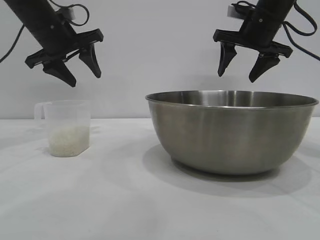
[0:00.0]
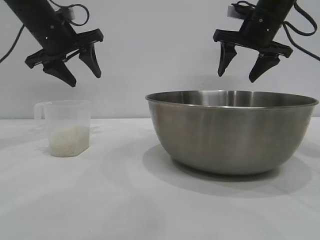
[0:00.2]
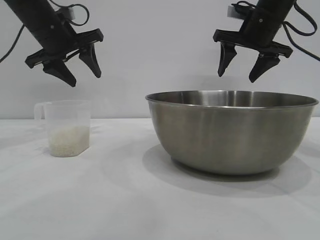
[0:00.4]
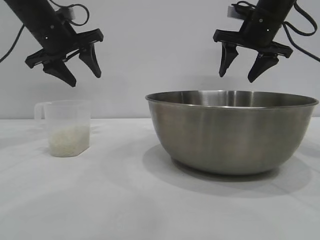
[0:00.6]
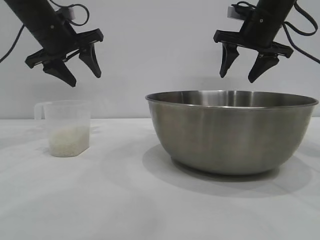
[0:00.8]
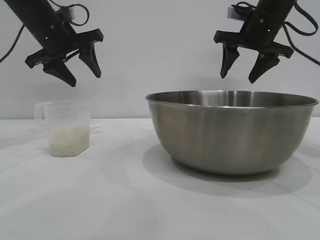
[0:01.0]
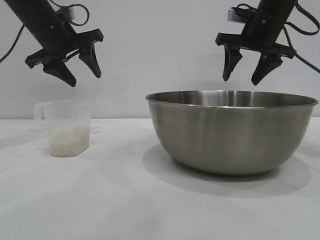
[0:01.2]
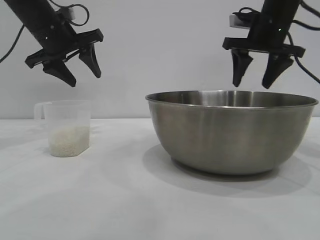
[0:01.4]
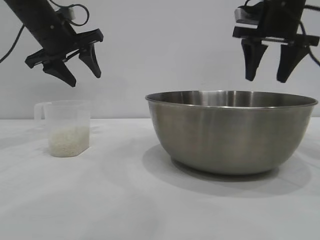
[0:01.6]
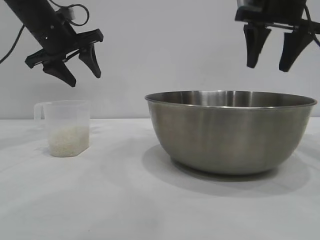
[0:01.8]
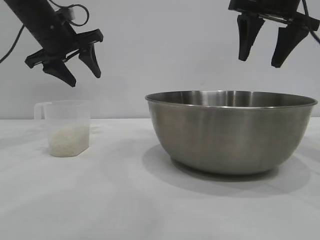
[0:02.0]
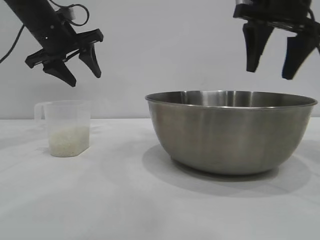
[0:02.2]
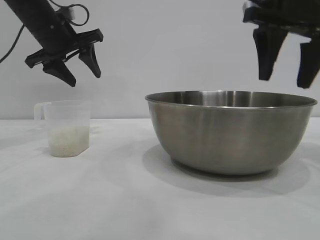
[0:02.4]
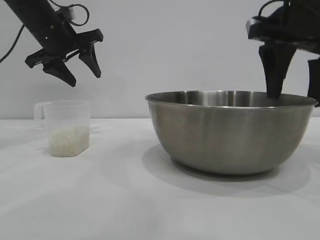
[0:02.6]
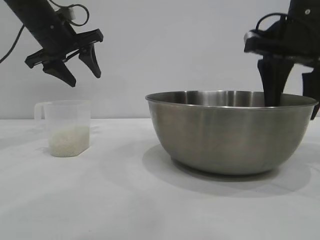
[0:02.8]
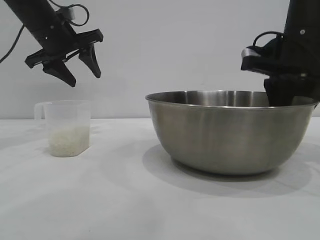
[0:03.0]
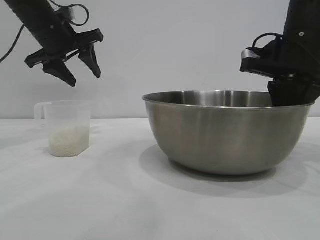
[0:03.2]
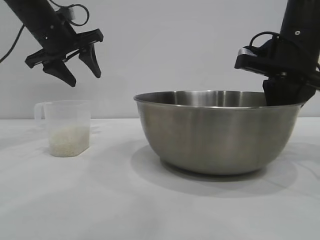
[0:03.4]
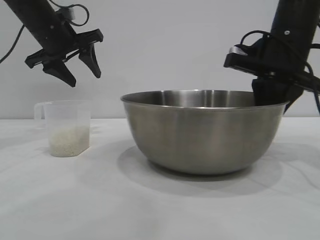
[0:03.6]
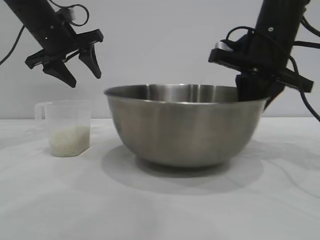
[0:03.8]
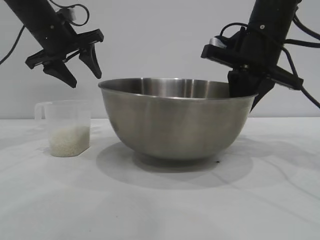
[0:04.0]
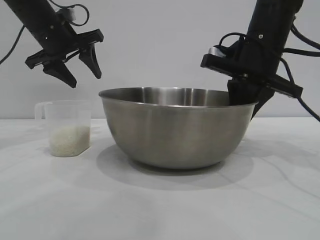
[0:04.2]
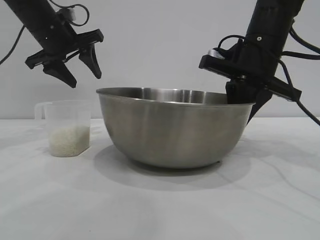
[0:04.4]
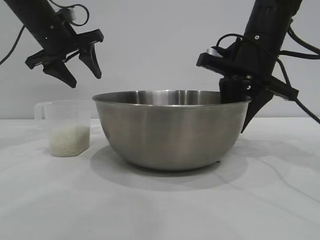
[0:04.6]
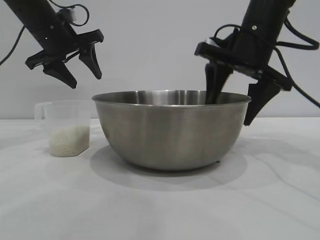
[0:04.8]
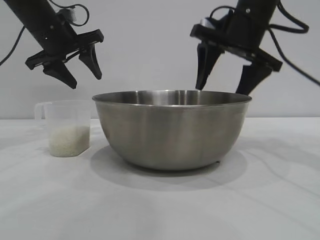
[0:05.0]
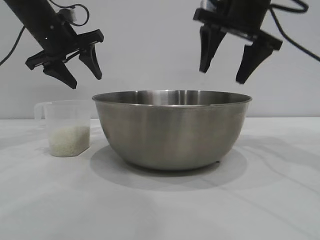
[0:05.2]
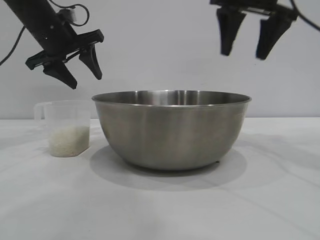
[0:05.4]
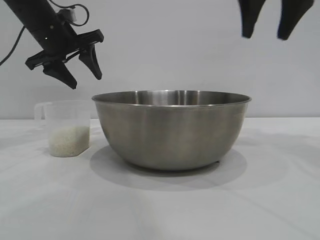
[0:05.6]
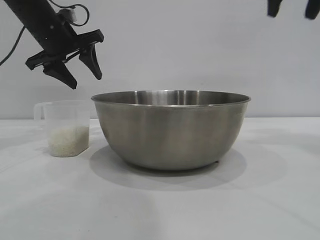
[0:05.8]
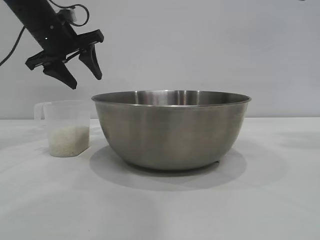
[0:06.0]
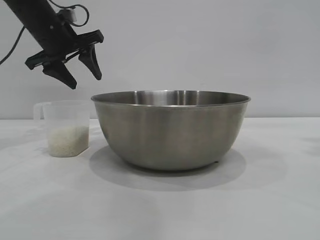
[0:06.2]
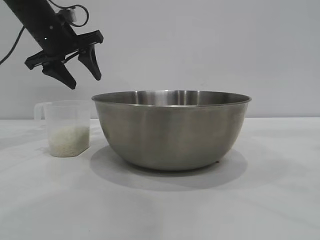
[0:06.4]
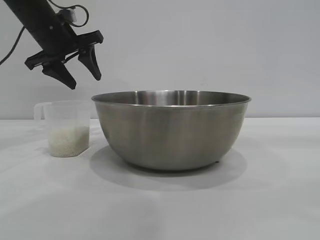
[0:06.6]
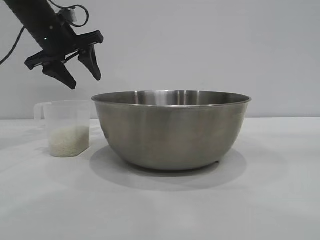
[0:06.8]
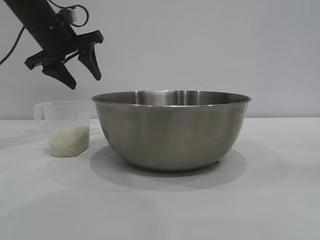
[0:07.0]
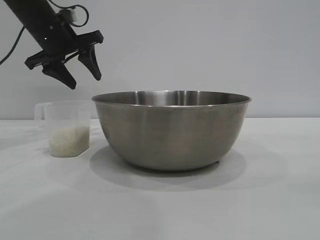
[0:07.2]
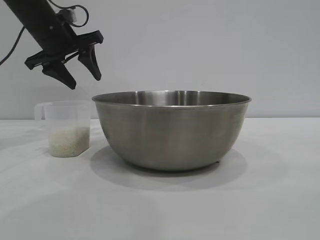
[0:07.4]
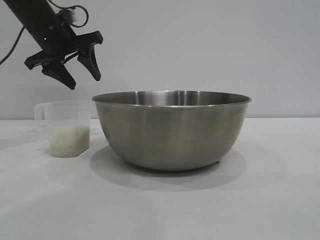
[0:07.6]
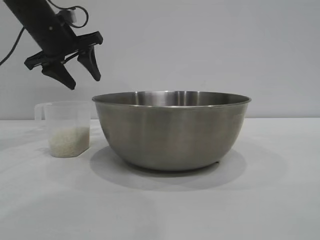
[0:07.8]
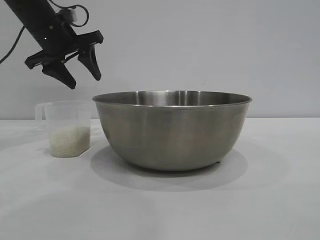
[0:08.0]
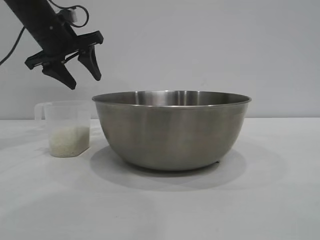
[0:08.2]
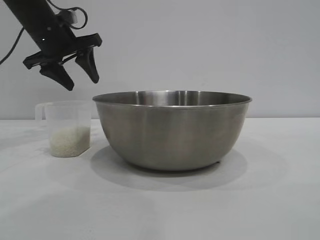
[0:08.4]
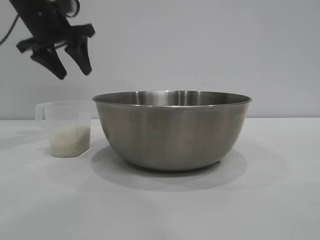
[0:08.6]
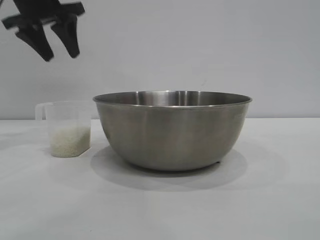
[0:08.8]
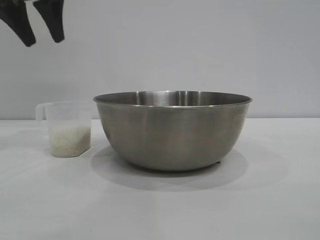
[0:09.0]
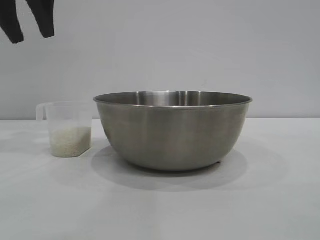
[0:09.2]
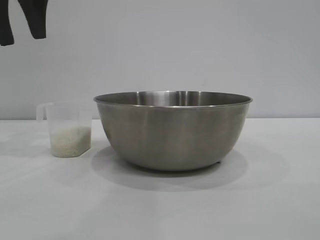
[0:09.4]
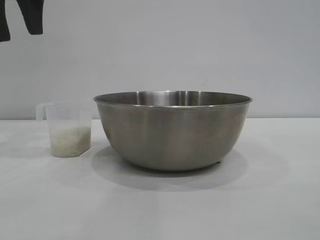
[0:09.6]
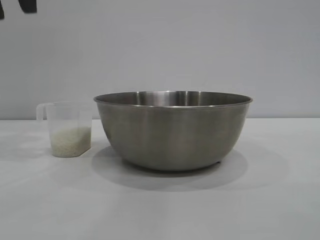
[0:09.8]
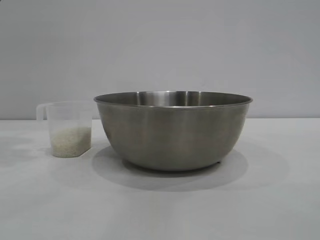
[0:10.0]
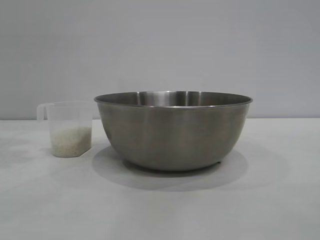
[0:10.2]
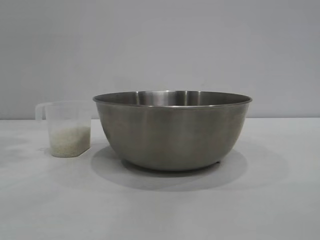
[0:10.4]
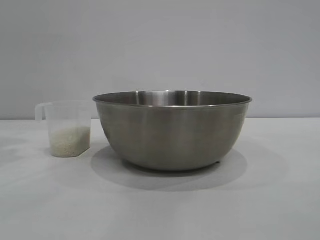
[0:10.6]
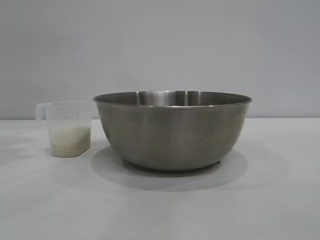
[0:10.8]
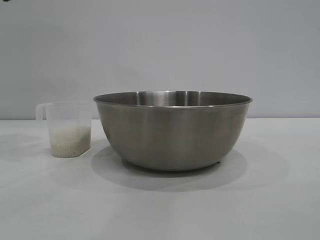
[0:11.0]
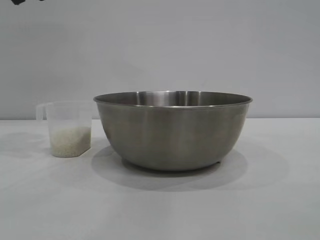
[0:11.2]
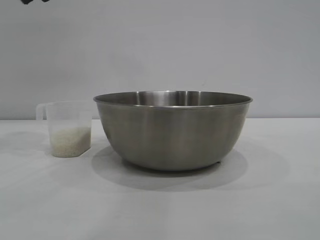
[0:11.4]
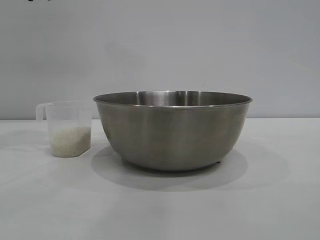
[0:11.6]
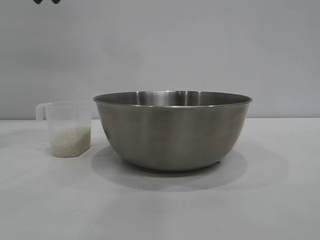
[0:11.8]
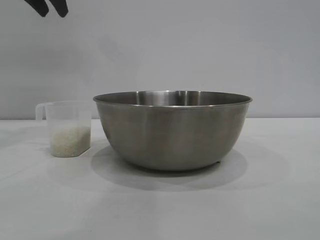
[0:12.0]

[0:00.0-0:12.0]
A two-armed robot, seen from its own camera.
Task of the whole recording: the right gripper grasp the rice container and place it in the center of the table, the left gripper grasp the rice scoop and pour the rice into the rice container.
Step, 0:00.0 to 0:03.8: Pick up the bowl with the right gripper.
Step, 0:04.0 to 0:05.2: Place the bowl in the center of view with the right gripper.

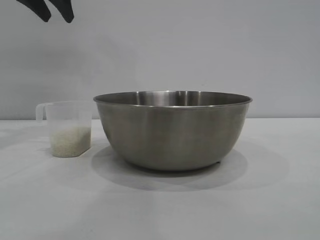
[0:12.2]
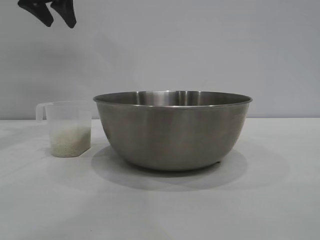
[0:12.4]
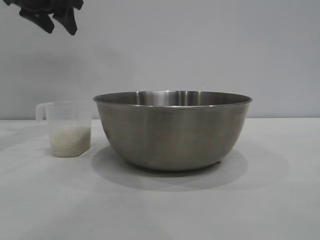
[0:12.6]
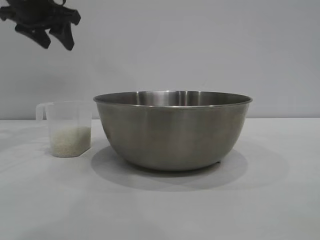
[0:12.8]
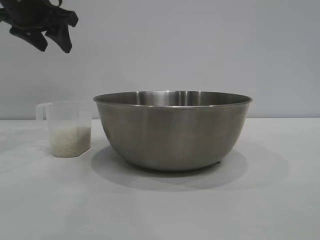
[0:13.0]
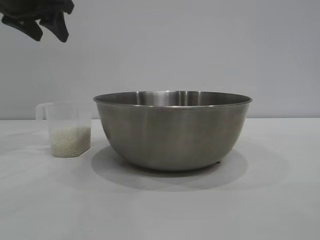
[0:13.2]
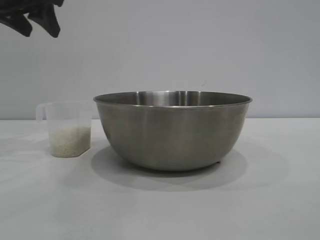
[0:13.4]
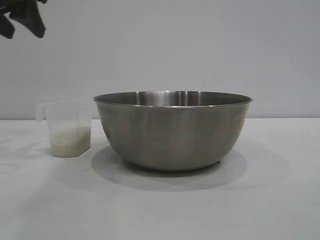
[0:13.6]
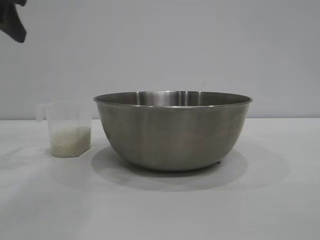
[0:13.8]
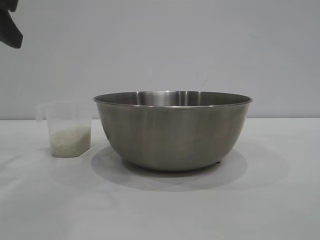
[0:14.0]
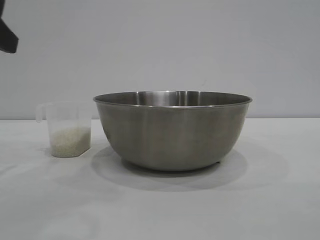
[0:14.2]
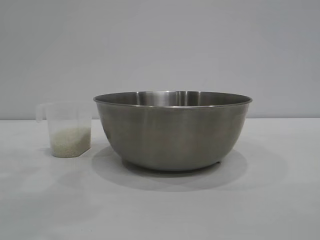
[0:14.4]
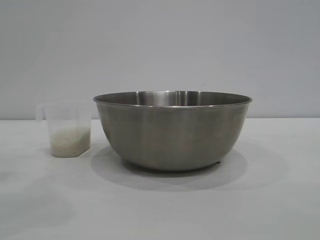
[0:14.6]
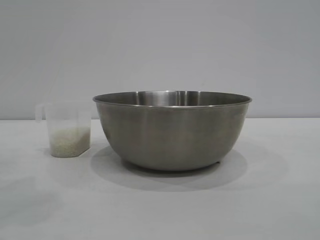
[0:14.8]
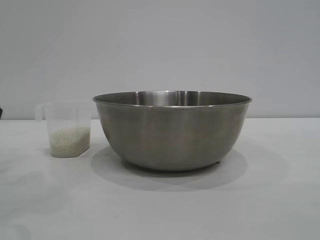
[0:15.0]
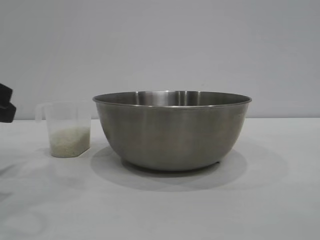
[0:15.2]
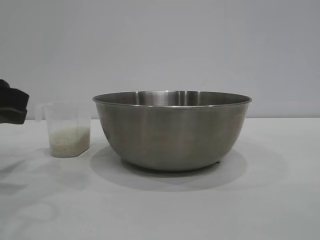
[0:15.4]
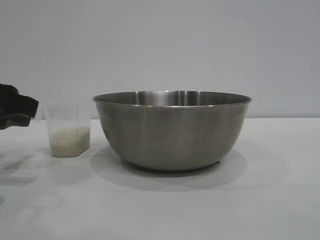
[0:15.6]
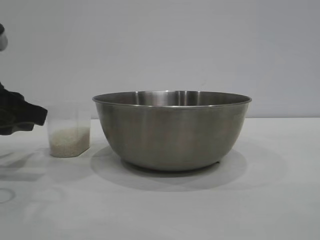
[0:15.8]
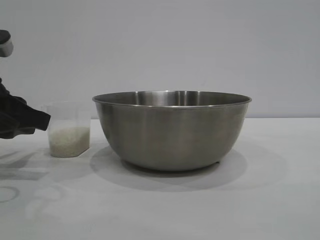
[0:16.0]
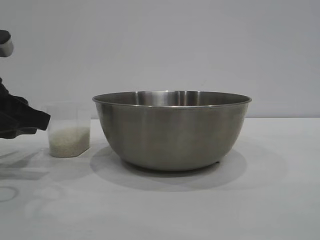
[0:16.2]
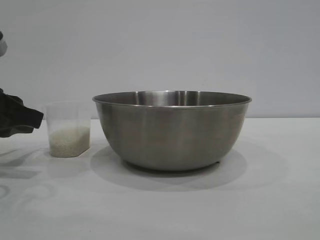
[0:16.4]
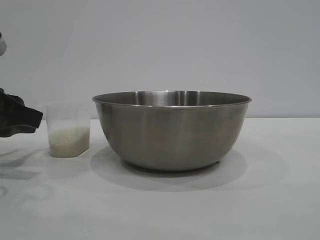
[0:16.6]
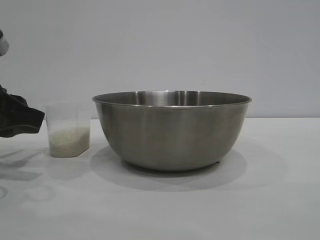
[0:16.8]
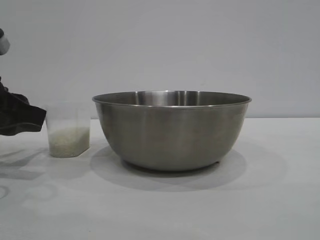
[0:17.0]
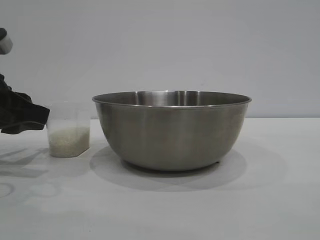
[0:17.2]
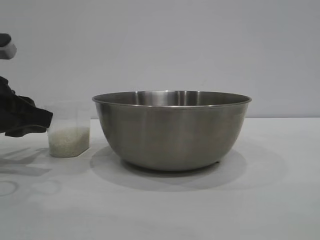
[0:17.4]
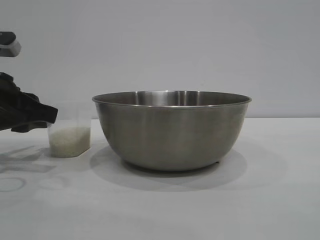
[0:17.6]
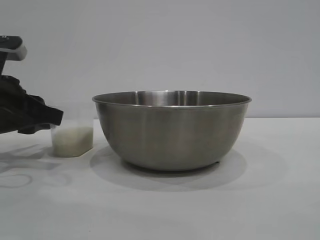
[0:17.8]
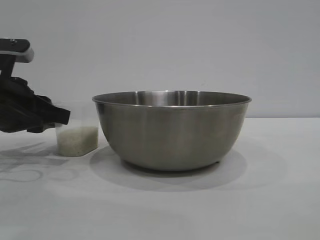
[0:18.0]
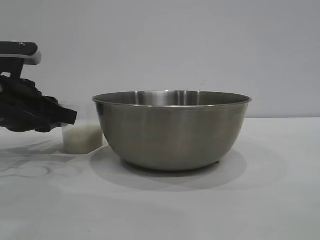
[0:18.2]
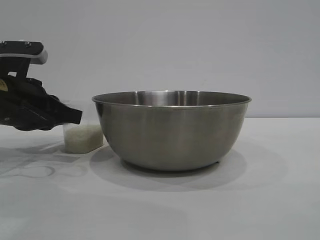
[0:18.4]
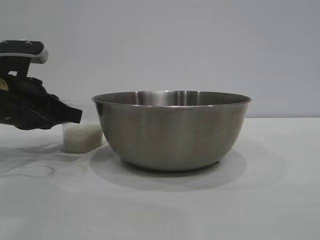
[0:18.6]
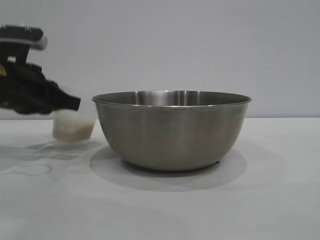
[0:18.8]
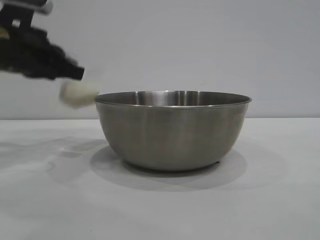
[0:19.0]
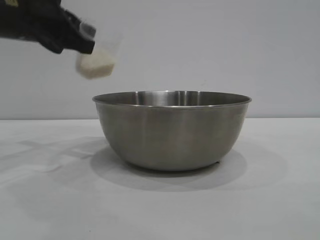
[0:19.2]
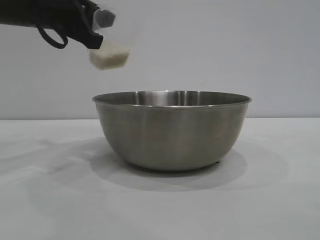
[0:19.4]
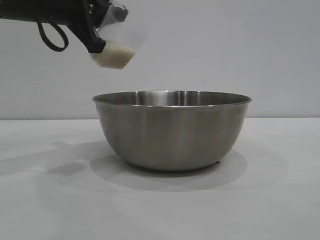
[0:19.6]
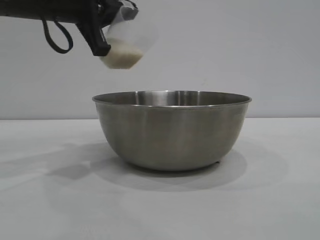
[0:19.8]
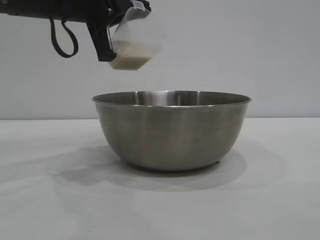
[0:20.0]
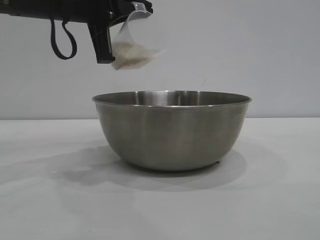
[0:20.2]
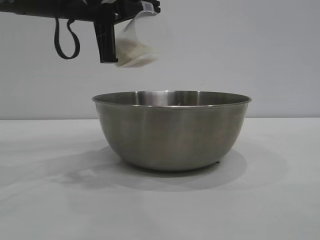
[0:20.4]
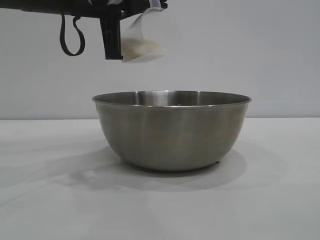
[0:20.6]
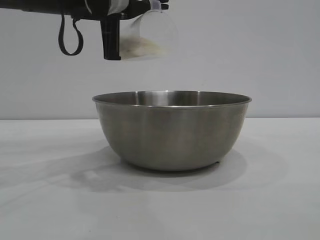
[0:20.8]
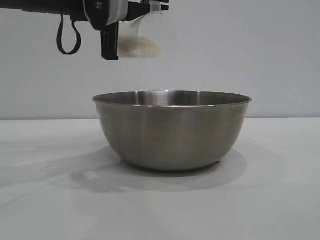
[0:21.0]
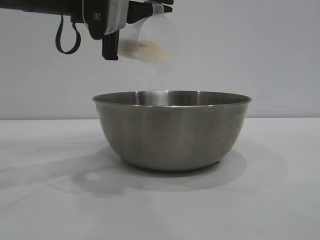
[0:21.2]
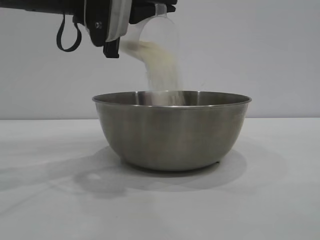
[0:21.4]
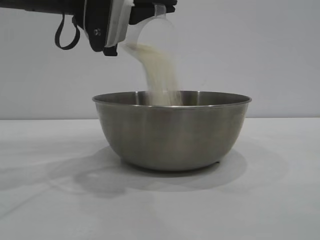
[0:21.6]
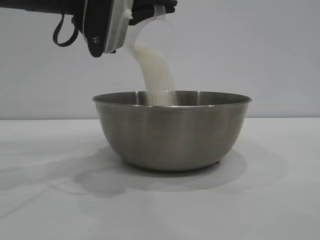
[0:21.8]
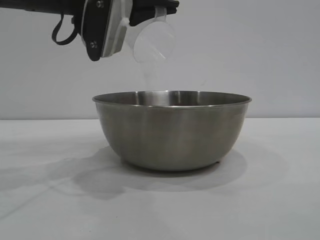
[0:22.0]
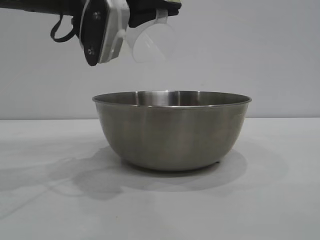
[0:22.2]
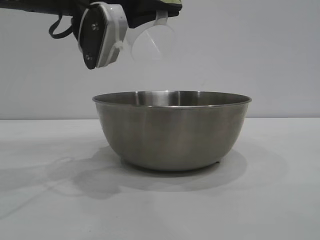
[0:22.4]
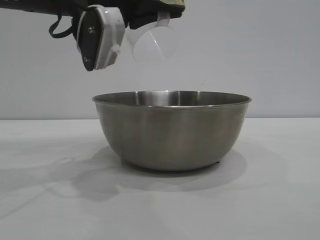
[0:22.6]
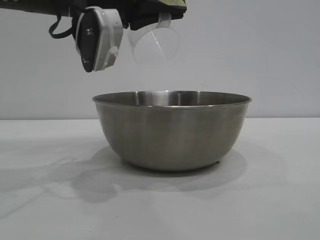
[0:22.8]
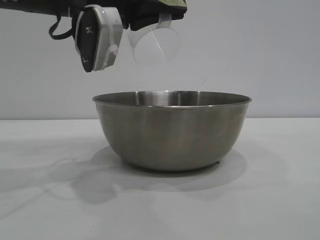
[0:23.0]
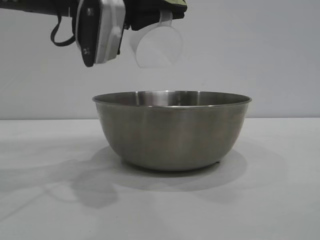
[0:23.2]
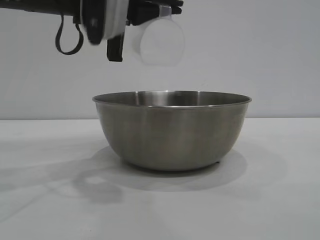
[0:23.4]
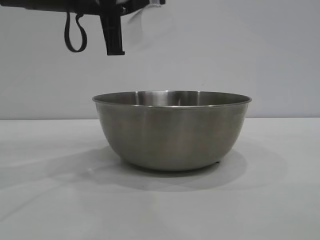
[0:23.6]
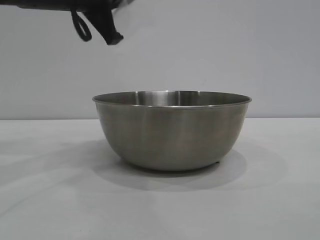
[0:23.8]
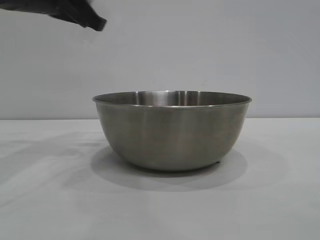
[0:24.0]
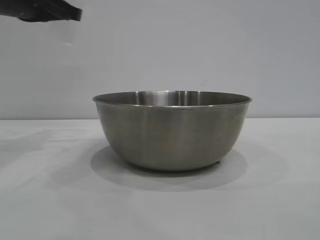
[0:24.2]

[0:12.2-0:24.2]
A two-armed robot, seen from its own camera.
Task of the whole recording: the right gripper grasp the rice container and place it in the center of the table, the left gripper grasp the rice scoop and pour the rice into the rice container.
Step, 0:12.2 to 0:18.8: Pick up the cup with rice in it with the left gripper.
Step, 0:19.0 to 0:22.4: Pour the rice from the cup into the bowl with the left gripper.
